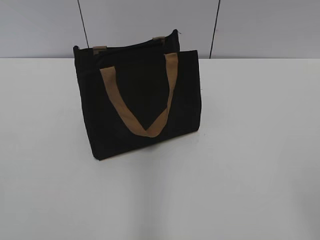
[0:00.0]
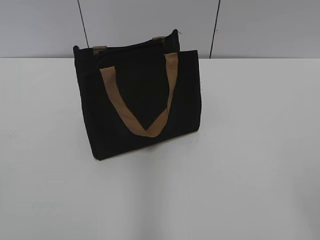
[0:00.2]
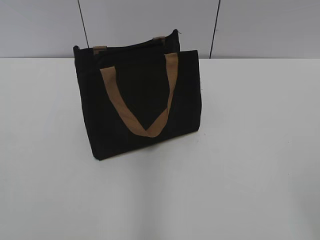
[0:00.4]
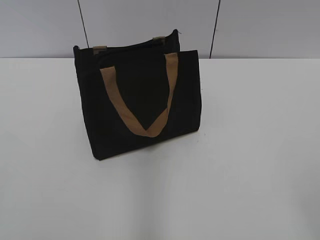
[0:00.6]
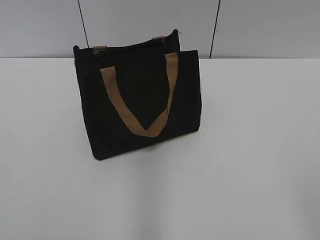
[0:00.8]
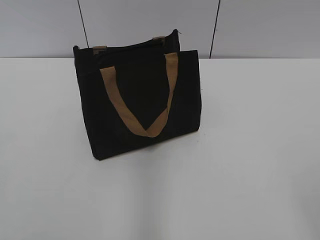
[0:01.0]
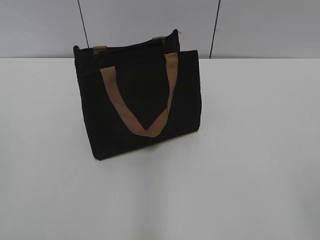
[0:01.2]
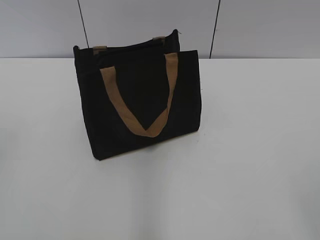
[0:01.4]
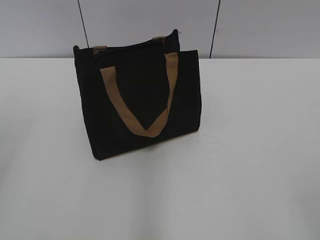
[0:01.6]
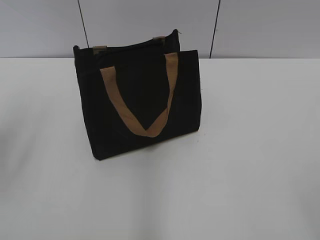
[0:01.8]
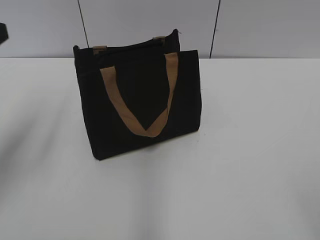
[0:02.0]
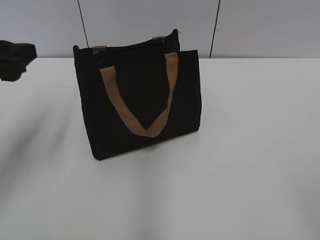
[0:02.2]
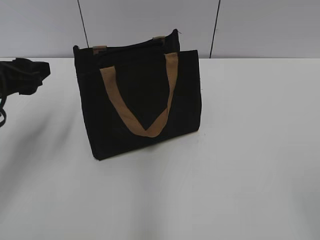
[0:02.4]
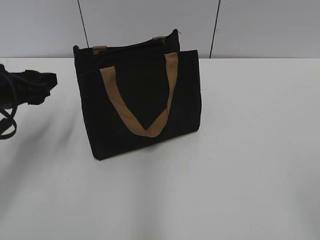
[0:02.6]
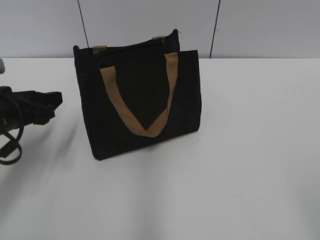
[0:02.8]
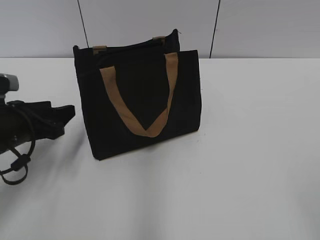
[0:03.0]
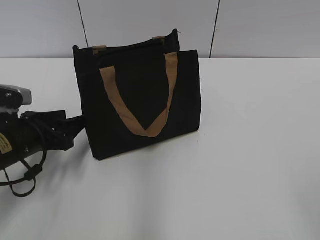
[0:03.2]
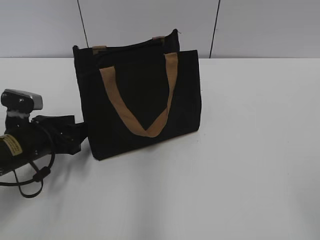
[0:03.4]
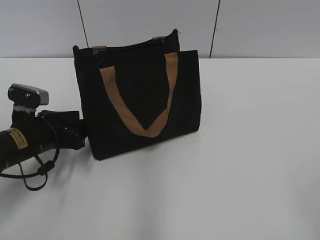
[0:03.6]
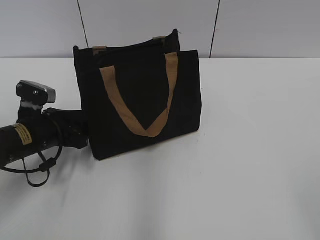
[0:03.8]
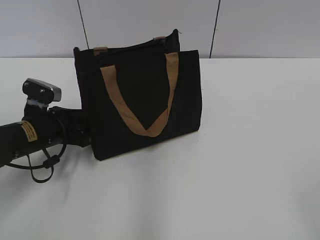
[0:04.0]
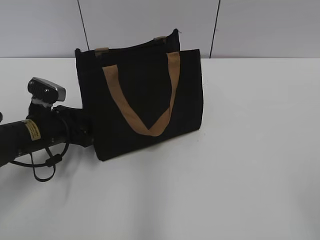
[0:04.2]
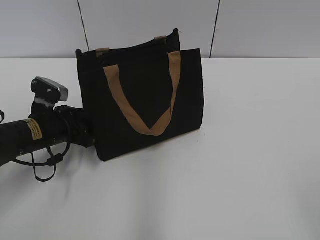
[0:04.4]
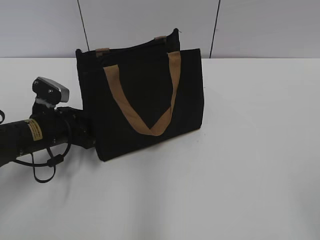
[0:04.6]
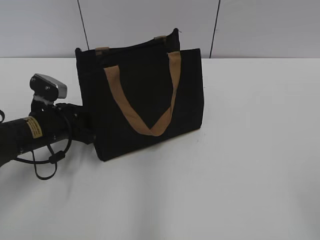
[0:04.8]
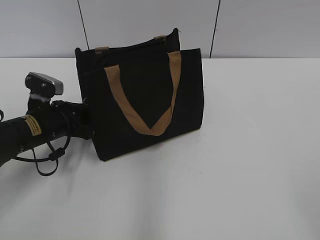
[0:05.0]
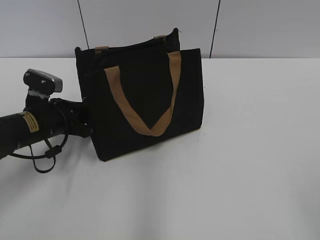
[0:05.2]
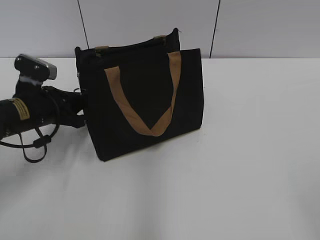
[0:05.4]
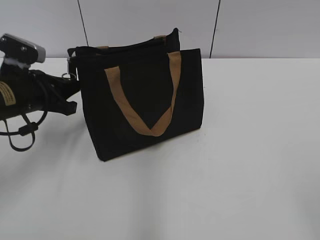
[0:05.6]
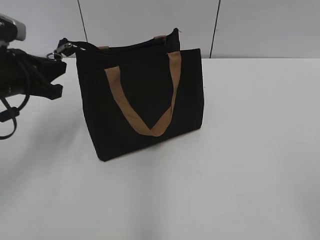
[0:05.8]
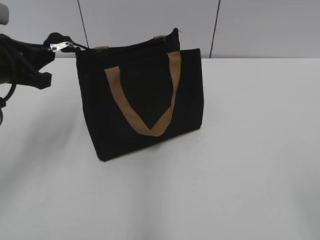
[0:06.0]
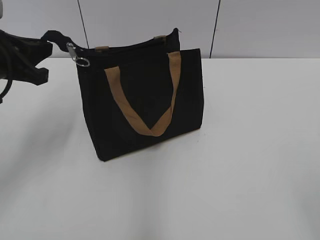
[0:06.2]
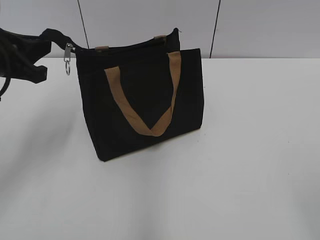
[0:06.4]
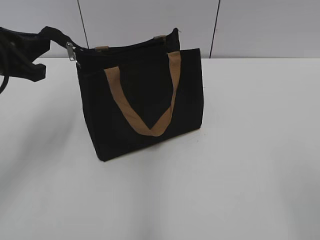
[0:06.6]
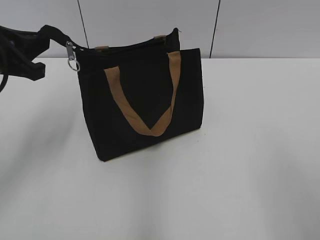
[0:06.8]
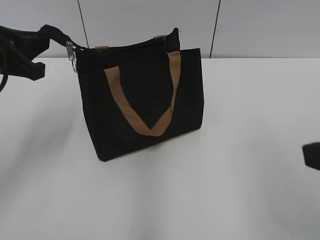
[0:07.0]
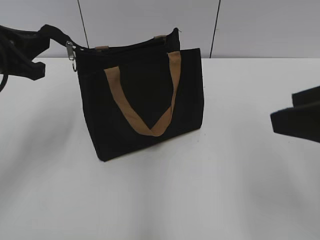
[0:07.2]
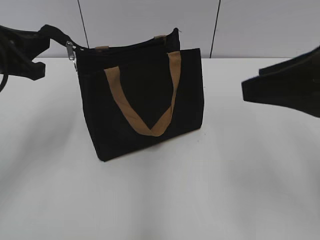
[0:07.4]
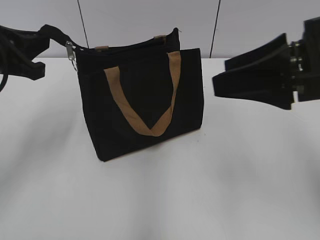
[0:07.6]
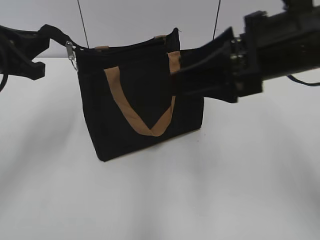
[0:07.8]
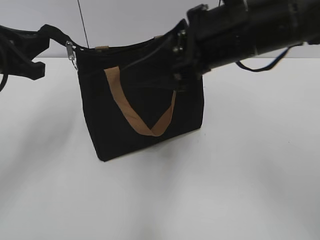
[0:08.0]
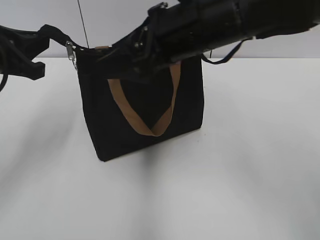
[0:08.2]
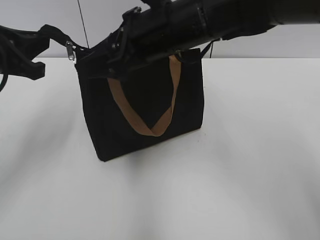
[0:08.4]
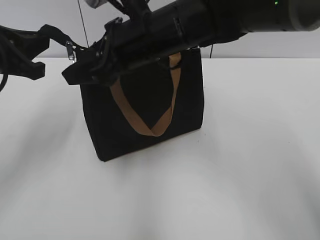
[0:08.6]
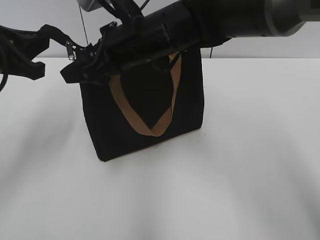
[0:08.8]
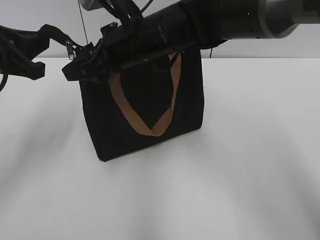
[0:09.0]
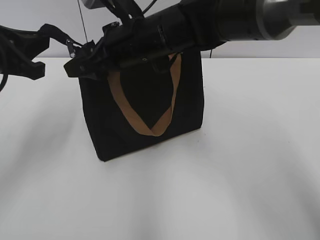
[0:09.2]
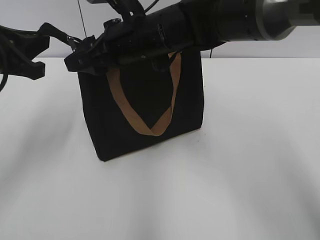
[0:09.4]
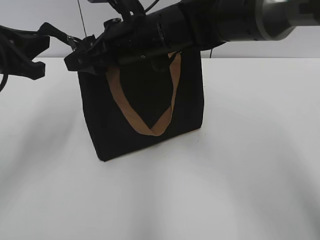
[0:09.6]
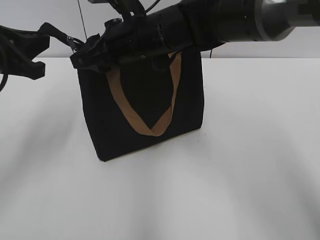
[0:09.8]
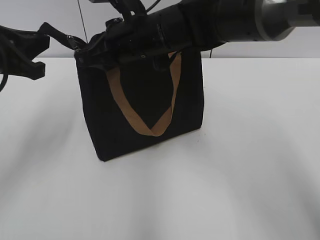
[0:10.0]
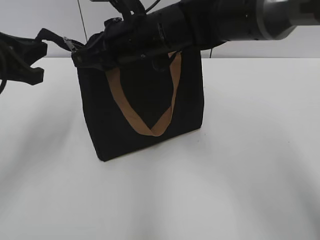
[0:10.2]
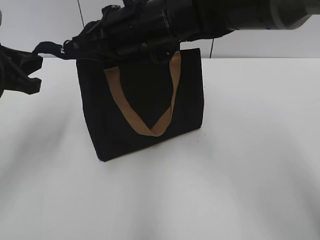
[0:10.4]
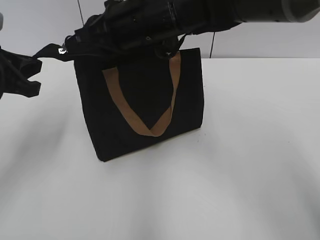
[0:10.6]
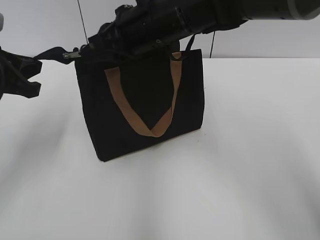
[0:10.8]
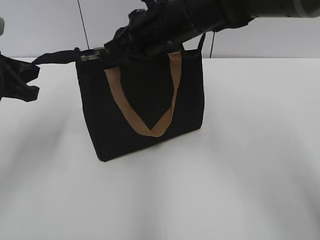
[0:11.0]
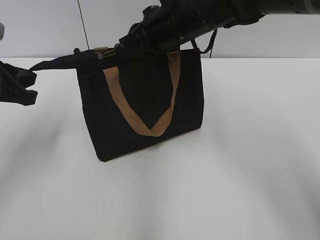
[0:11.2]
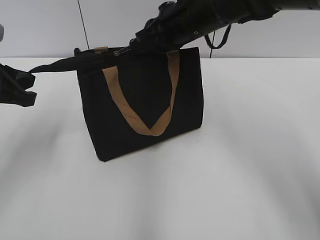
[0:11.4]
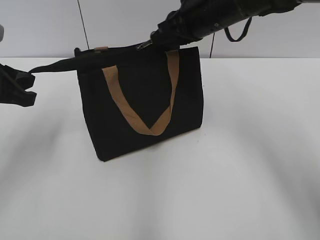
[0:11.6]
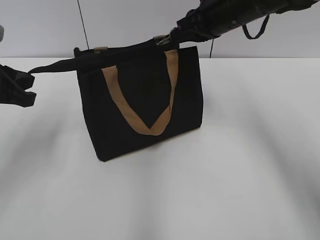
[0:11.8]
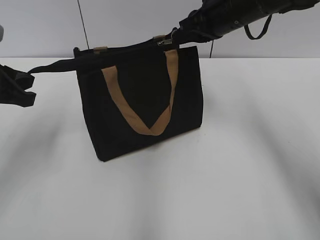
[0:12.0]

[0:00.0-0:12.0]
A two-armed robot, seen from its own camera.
0:01.6 to 0:03.0: The left gripper shifts approximately 25 cm downward and forward.
0:03.0 to 0:04.4: The left gripper is displaced downward by some 5 cm.
0:04.4 to 0:06.0: The left gripper moves upward, approximately 15 cm, and closes up.
0:06.0 to 0:07.6: The right gripper heads forward, covering approximately 20 cm.
0:07.6 to 0:09.0: The right gripper goes roughly 25 cm to the left and forward.
0:09.0 to 0:10.4: The right gripper closes its fingers.
0:10.4 to 0:12.0: The right gripper shifts roughly 15 cm to the right and forward.

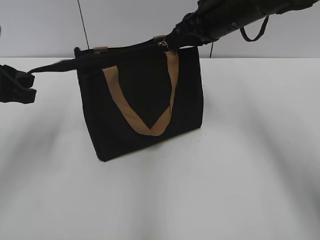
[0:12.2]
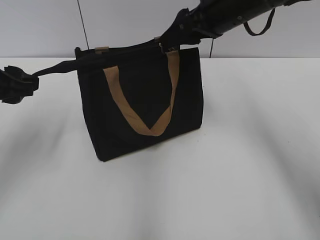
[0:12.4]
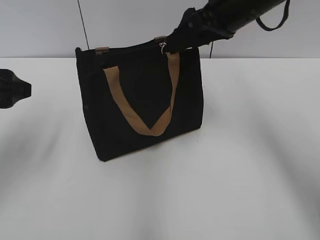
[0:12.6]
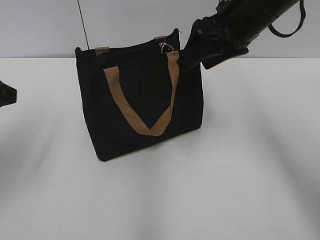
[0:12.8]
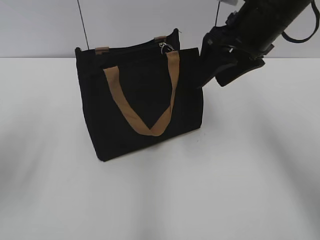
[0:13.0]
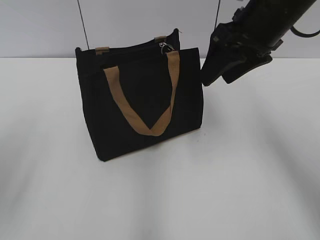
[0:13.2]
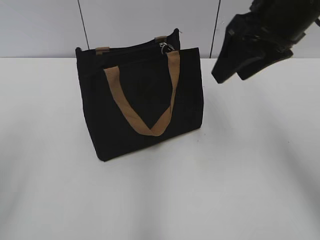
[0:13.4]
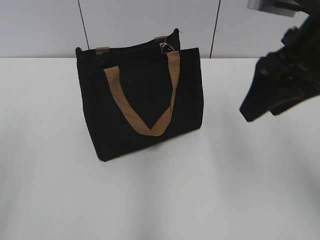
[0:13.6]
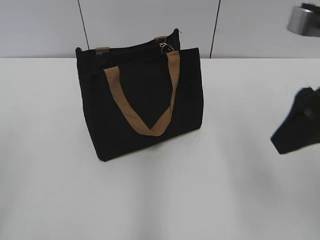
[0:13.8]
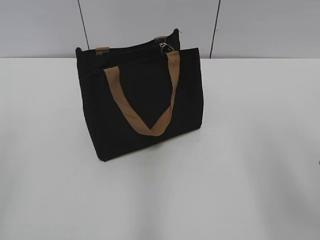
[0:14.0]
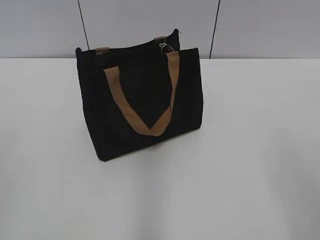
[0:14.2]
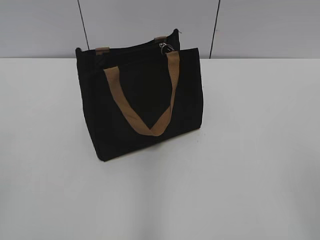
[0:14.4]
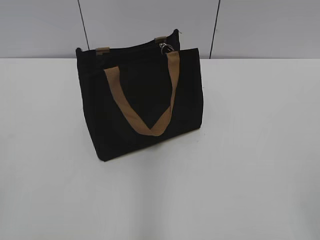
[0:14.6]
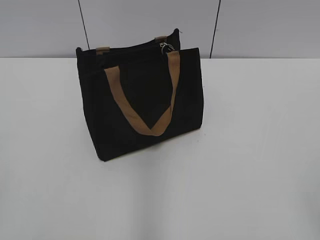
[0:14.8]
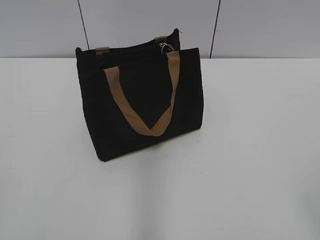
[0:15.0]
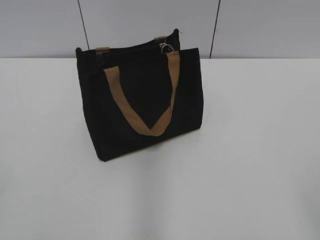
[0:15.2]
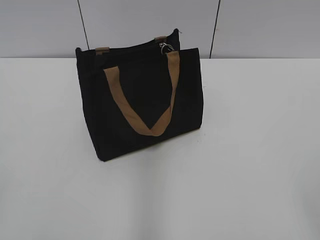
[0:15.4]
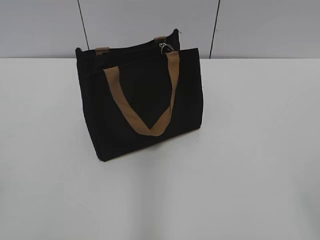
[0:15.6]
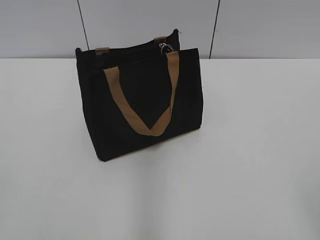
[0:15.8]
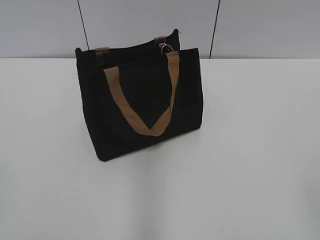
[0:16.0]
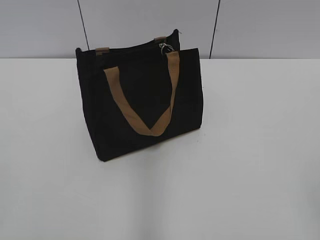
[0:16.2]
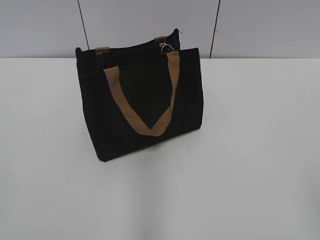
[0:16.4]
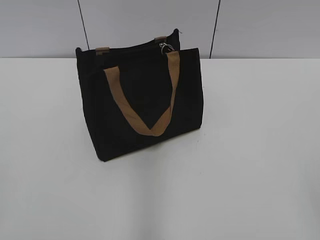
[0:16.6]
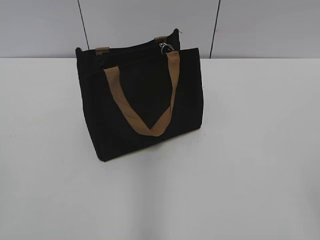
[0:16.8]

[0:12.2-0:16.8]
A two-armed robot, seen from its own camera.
0:12.2 to 0:13.8: The right gripper is displaced backward by roughly 20 cm, and opens up. The left gripper moves backward and upward, about 20 cm, and opens.
0:13.8 to 0:15.2: The right gripper heads backward and to the right, covering about 25 cm.

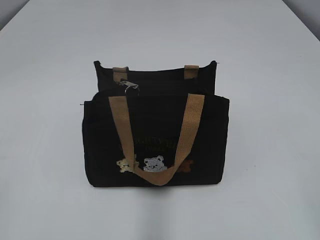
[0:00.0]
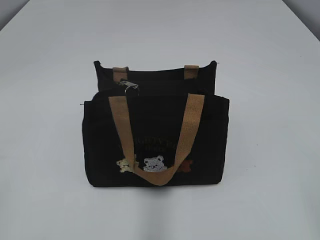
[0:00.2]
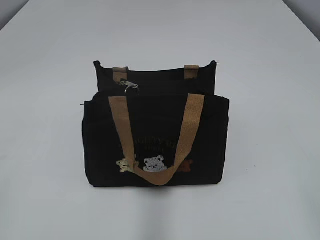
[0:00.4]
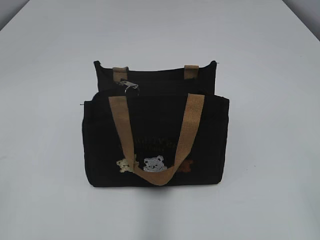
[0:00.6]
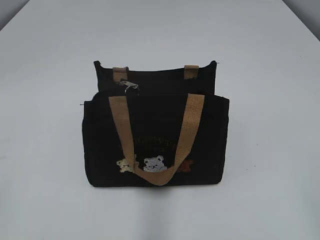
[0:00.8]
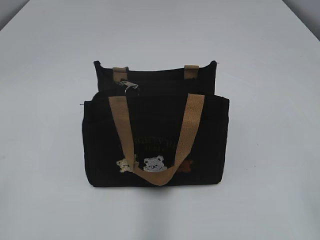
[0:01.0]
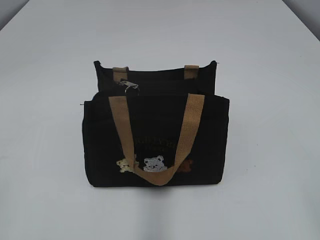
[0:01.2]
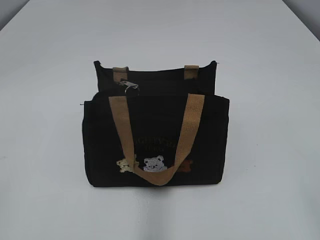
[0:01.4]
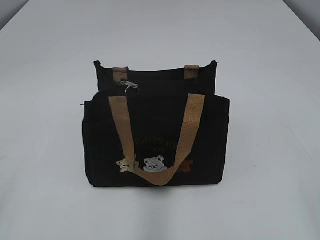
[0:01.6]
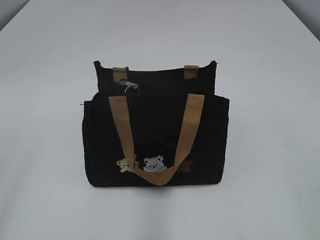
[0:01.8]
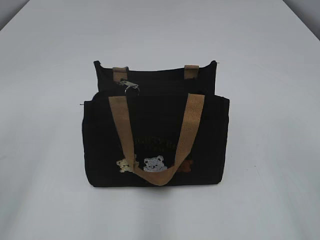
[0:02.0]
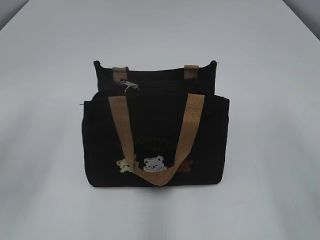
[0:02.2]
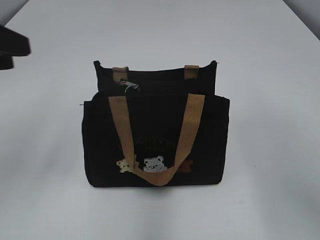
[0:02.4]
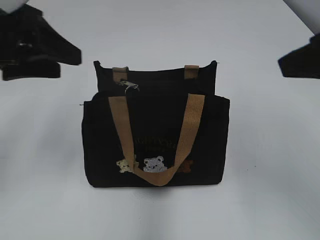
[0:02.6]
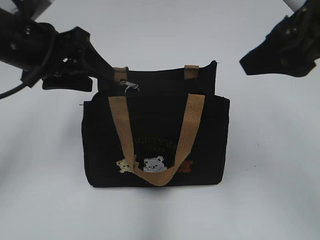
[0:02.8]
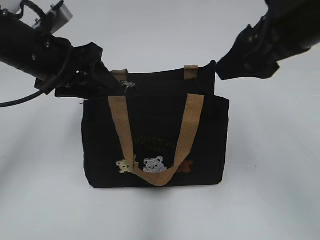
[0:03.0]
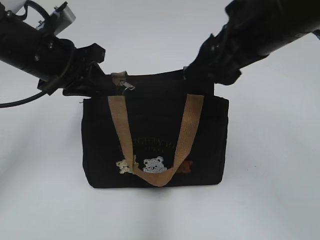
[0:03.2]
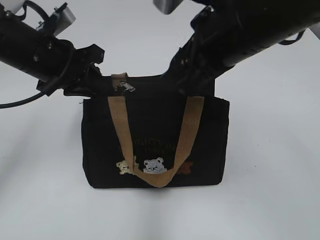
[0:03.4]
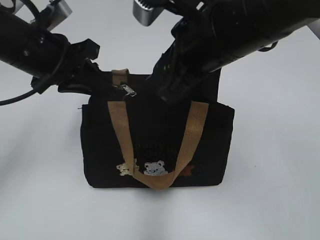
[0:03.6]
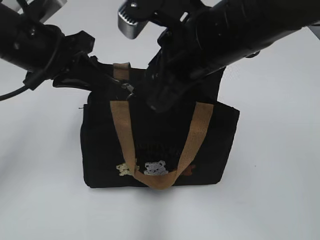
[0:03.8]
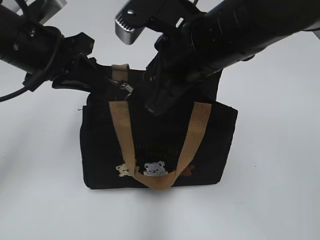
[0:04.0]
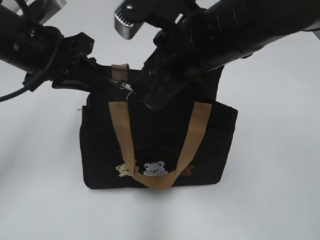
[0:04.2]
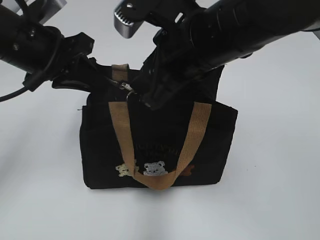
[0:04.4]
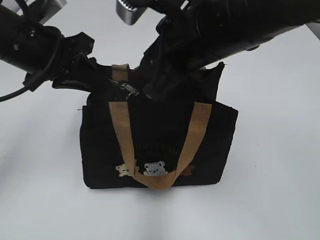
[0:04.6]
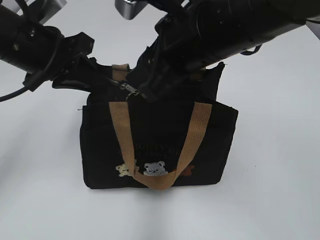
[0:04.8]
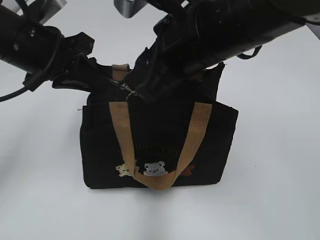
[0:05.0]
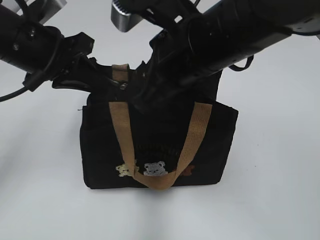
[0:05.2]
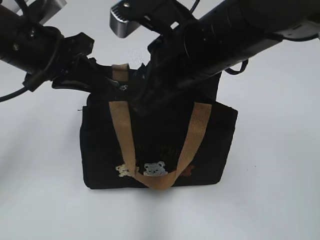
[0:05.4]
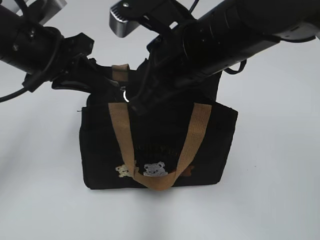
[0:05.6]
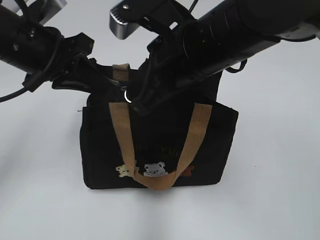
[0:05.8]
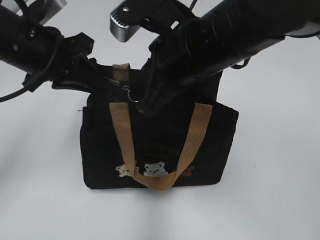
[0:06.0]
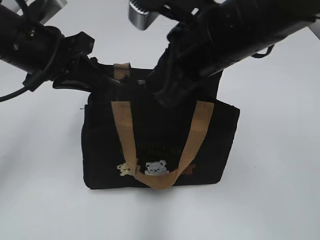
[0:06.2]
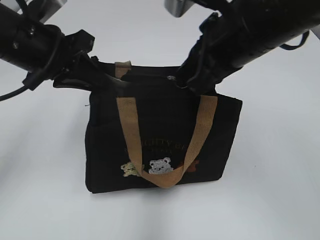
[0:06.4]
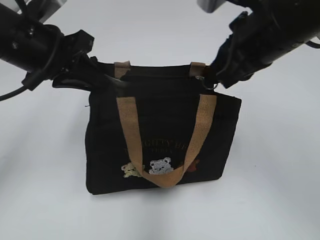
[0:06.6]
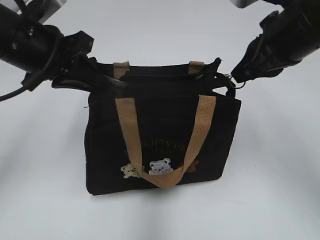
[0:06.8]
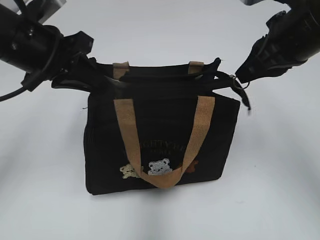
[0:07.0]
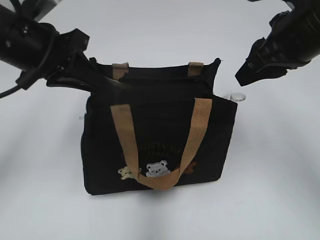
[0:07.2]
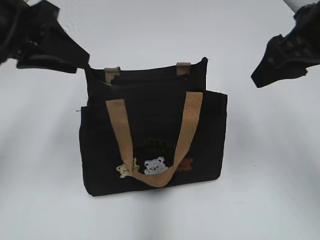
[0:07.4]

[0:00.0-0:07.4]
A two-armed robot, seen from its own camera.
Step, 0:00.0 to 0:07.0: Pull open the zipper with your right hand.
0:01.4 to 0:03.0: The right gripper goes about 30 cm forward and to the left. Meanwhile the left gripper heads forward and to the right, covering approximately 35 cm.
0:03.0 to 0:04.4: The left gripper closes its fingers. Meanwhile the right gripper shifts approximately 10 cm to the left and downward.
0:04.4 to 0:06.0: The right gripper closes.
0:06.0 to 0:07.4: The left gripper ends up some 5 cm from where it was, and opens up. Meanwhile the right gripper travels to the right by roughly 15 cm, and opens.
